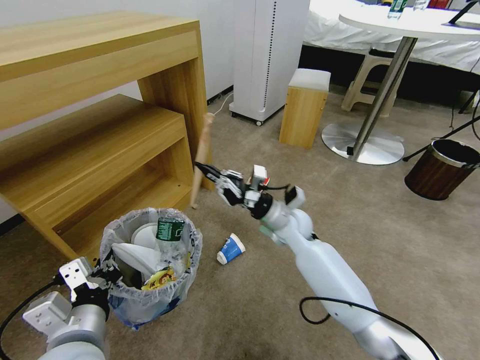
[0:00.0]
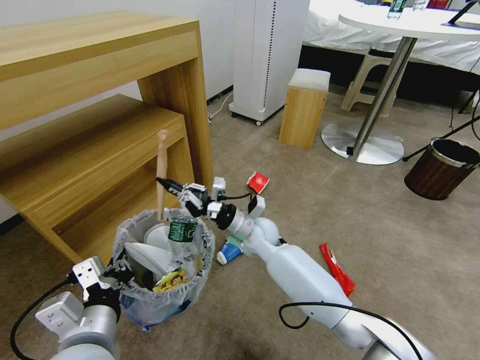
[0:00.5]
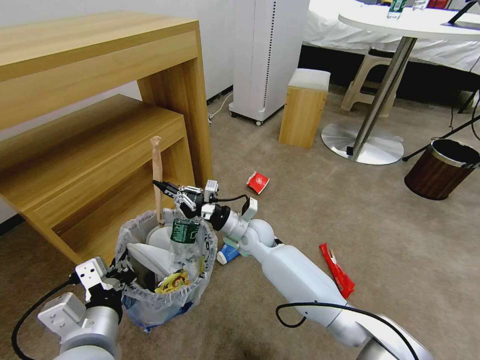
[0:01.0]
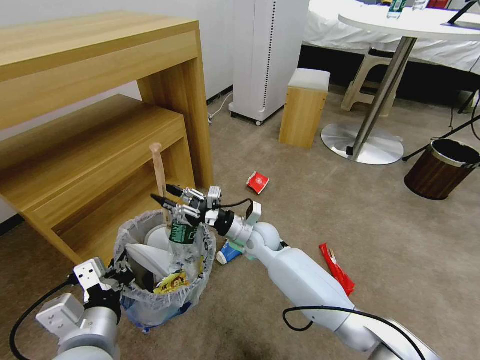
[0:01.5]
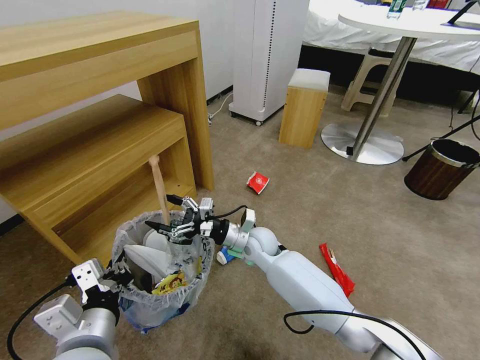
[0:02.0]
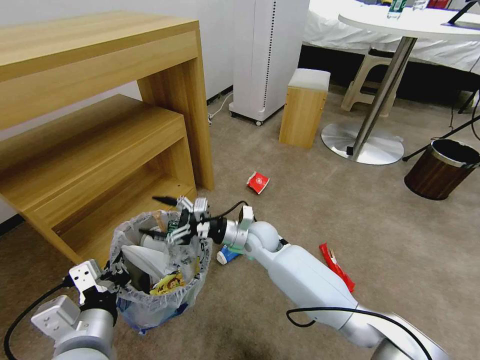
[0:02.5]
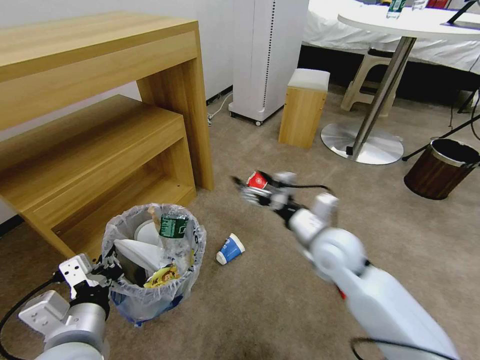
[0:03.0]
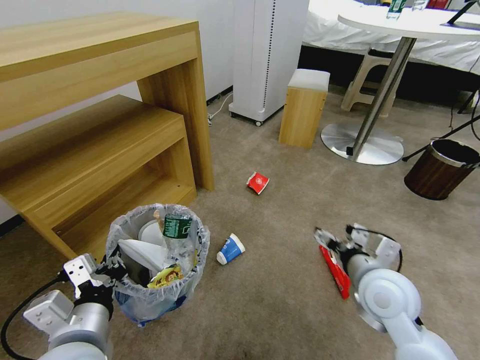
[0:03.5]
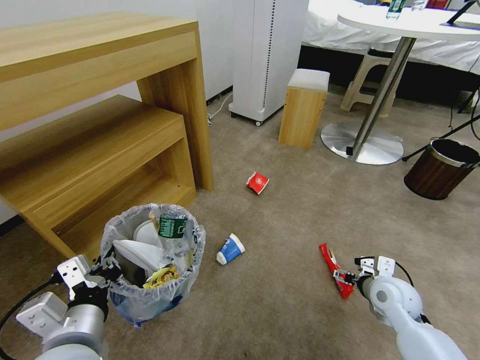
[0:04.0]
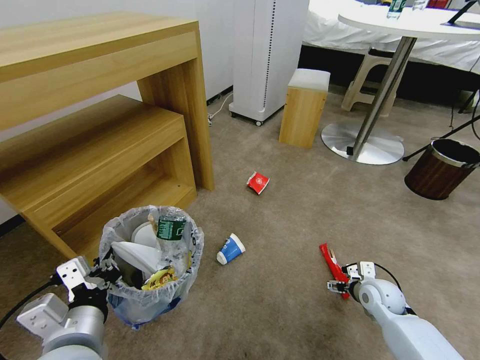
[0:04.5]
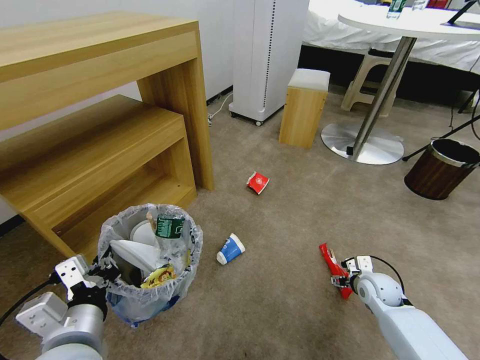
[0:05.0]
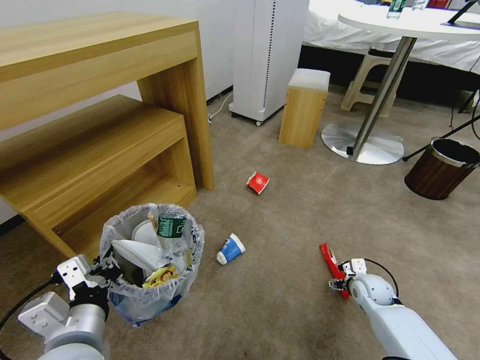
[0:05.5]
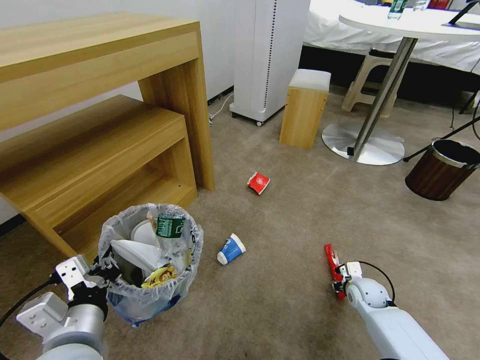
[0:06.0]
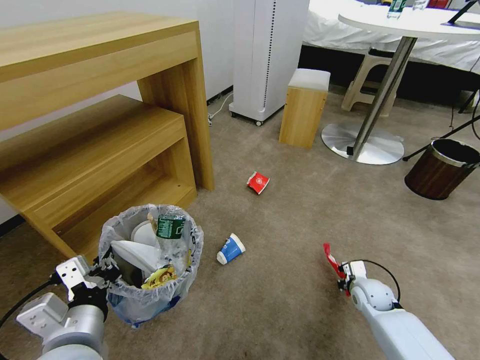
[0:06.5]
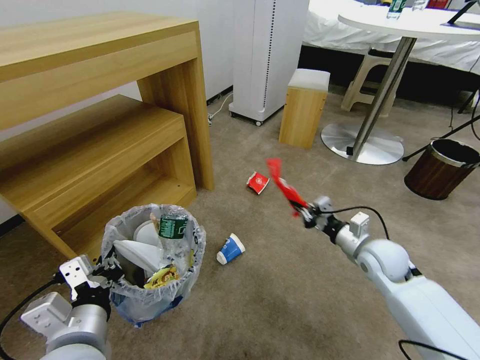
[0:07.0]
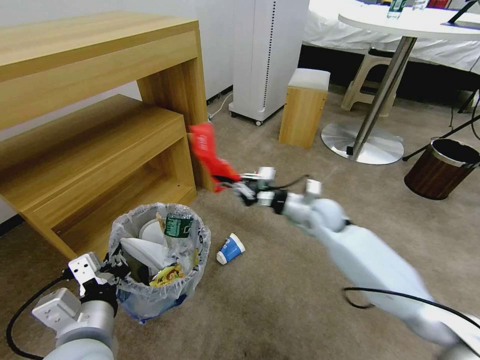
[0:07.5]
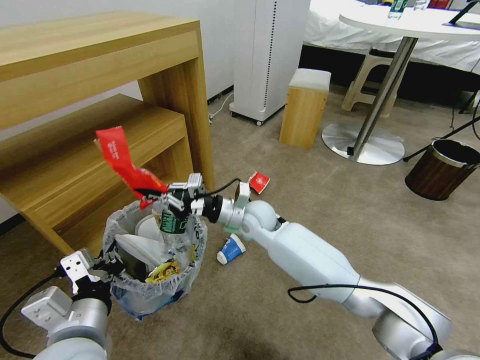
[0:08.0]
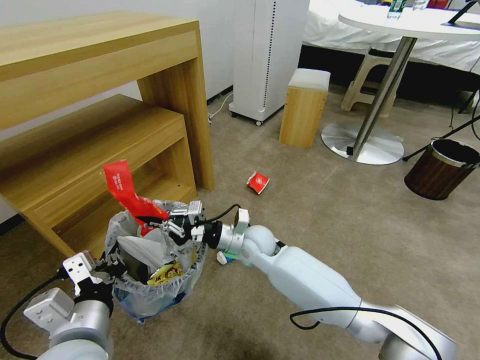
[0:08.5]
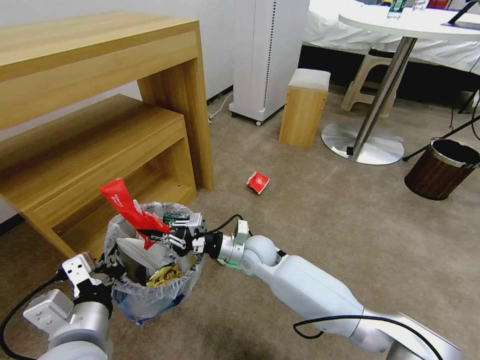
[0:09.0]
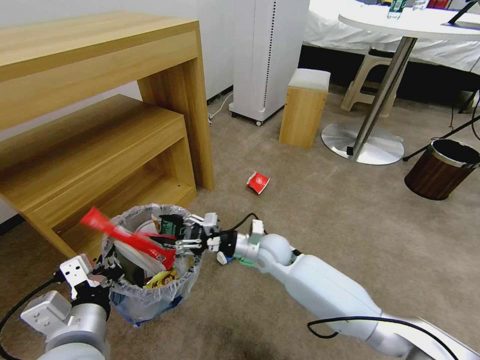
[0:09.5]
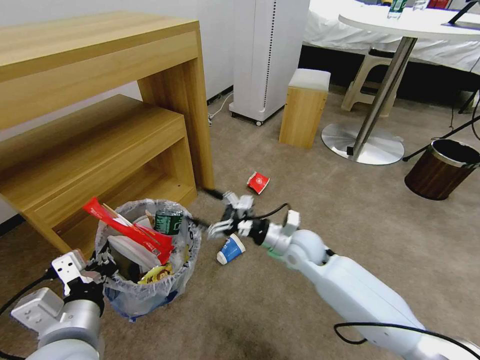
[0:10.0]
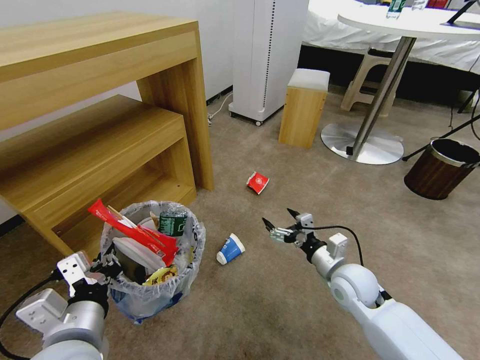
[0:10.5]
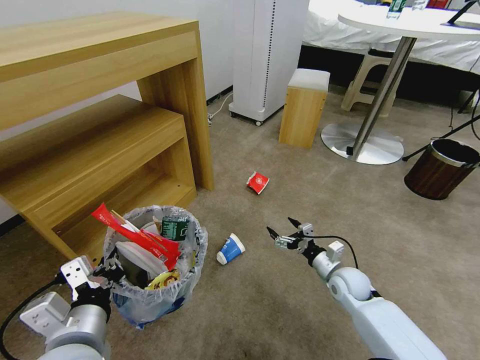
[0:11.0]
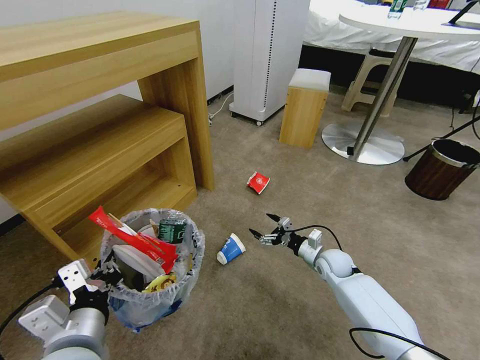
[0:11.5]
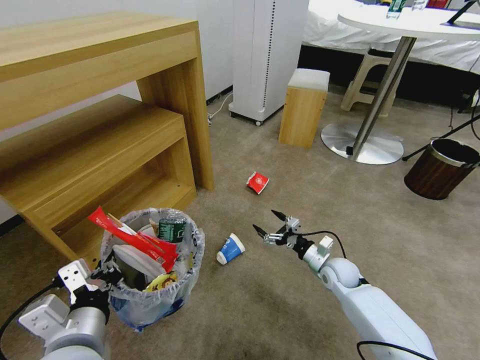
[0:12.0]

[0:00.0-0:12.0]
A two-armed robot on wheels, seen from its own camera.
Task of the whole recording: Pick up the trash bin and place the garbage on the floor into it.
0:00.0 to 0:02.0: The right gripper is displaced to the left and downward by about 10 cm, and opens up.
0:02.0 to 0:04.0: The right gripper goes about 35 cm to the right and backward.
0:04.0 to 0:06.0: The right gripper travels downward and forward by roughly 15 cm, and closes its fingers.
0:06.0 to 0:08.0: The right gripper moves to the left and upward, about 40 cm, and closes up.
0:08.0 to 0:10.0: The right gripper shifts roughly 10 cm to the right and backward, and opens up.
0:10.0 to 0:12.0: The right gripper is displaced to the right and downward by some 20 cm.

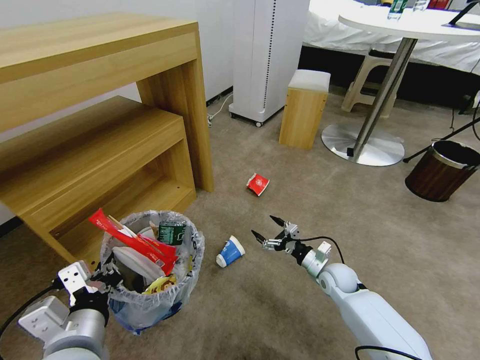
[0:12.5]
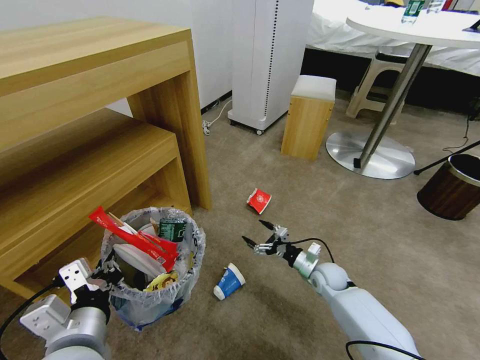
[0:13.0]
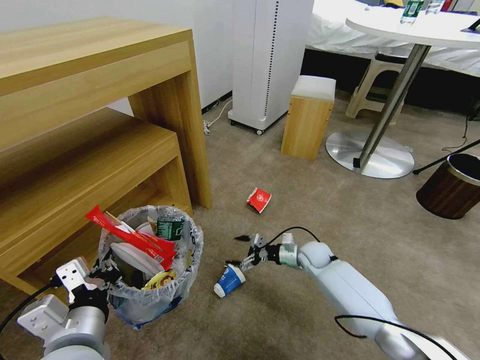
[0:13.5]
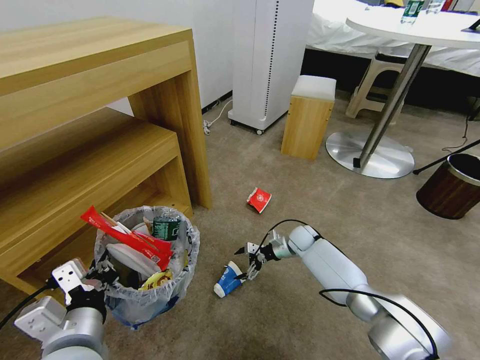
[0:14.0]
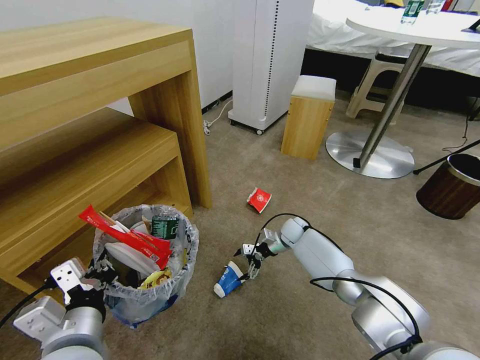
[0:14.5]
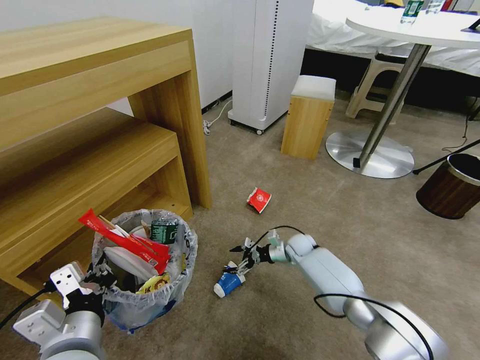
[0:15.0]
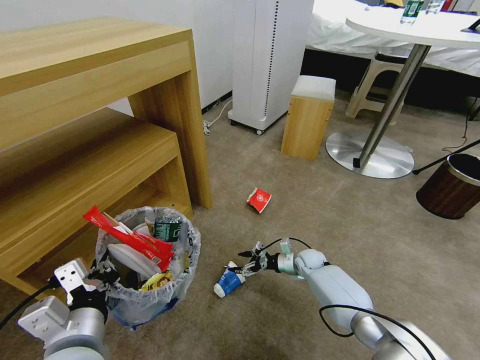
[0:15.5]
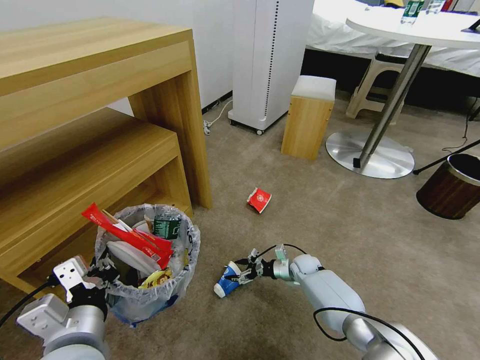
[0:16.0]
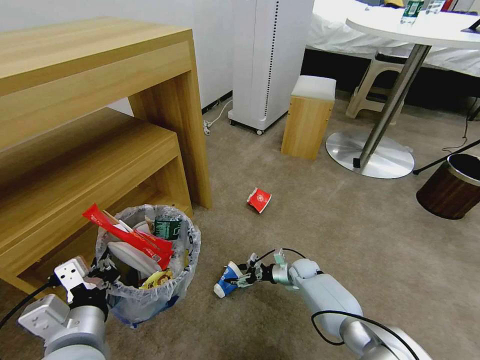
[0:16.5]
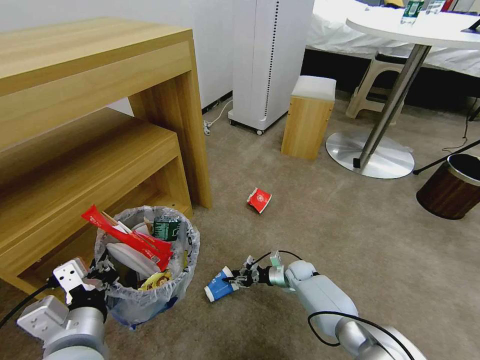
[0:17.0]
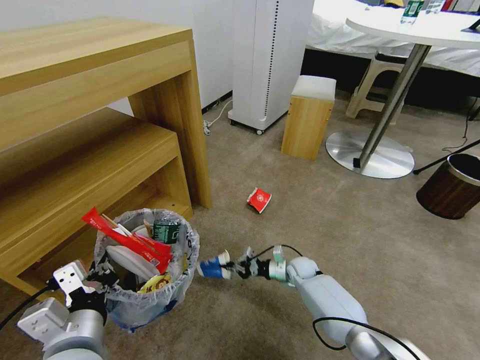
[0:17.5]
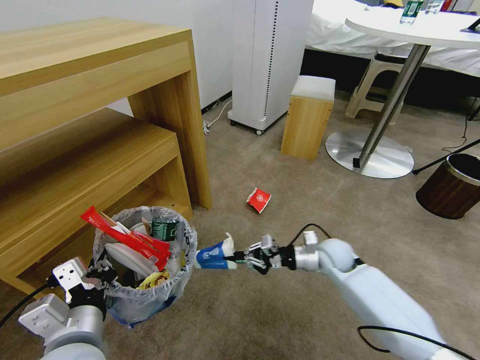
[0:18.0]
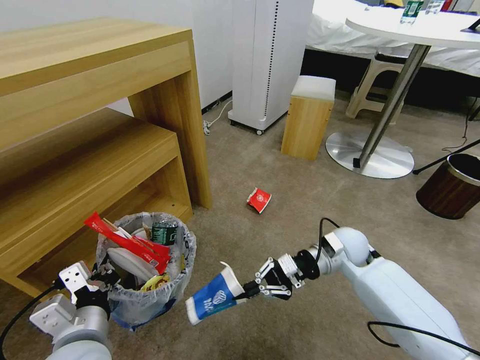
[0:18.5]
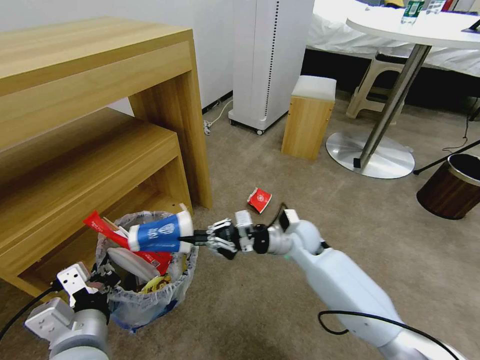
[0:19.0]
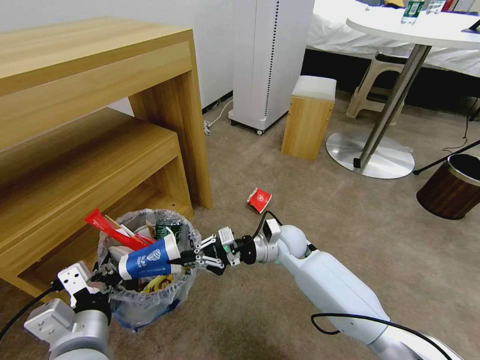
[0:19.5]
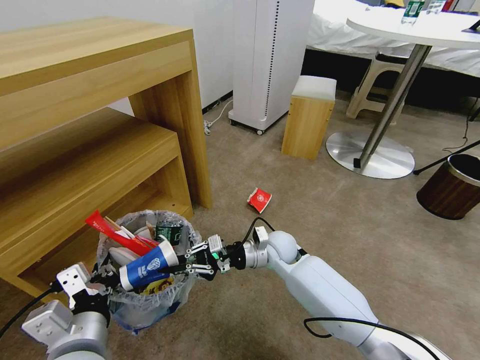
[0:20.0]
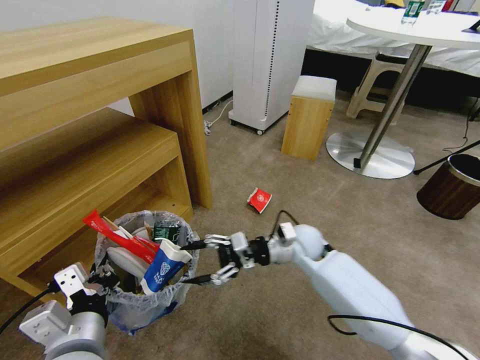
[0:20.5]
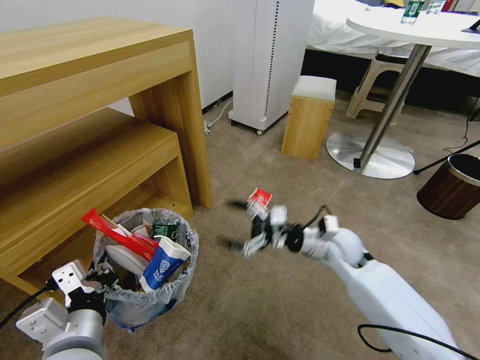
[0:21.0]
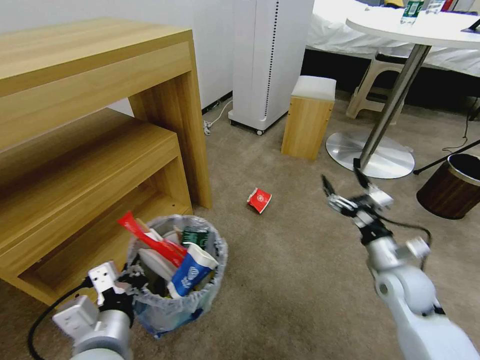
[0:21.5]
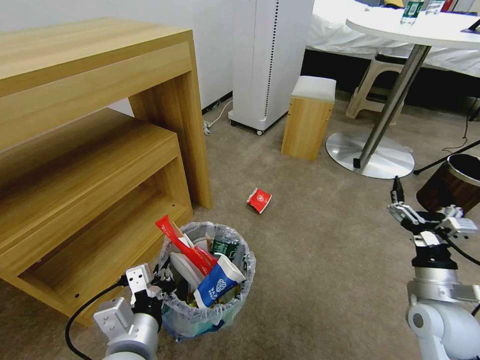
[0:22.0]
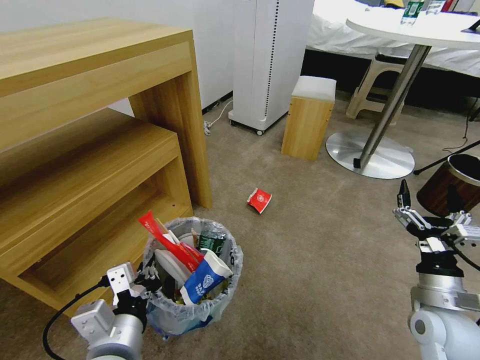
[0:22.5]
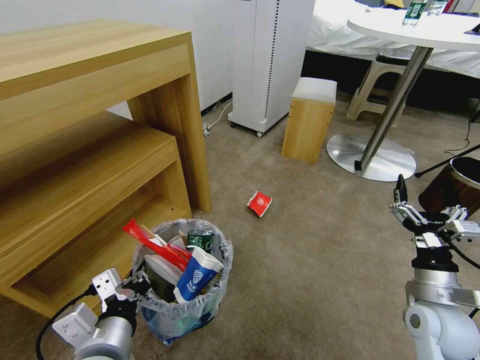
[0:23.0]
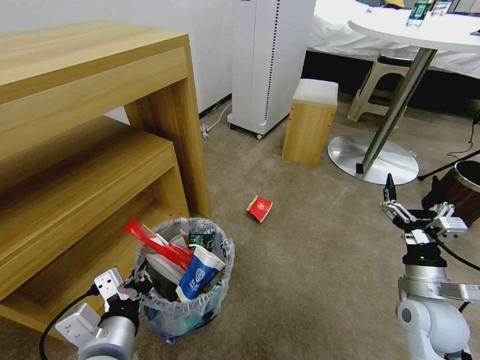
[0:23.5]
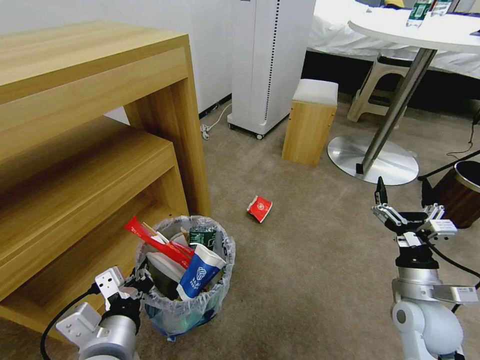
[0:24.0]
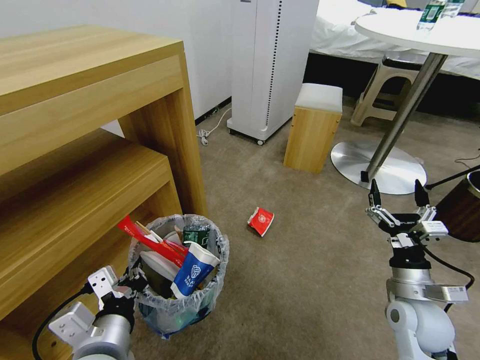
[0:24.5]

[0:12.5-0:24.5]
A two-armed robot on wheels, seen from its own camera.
Task of the whole recording: Pick up the trash bin and place the garbage on the floor into it.
0:12.5 to 0:14.5: The right gripper travels forward and to the left by about 20 cm.
0:14.5 to 0:16.5: The right gripper goes some 15 cm backward and downward.
0:16.5 to 0:18.5: The right gripper moves upward, some 25 cm, and closes its fingers.
0:18.5 to 0:20.5: The right gripper heads to the left, covering approximately 10 cm, and opens.
0:20.5 to 0:22.5: The right gripper is displaced to the right and backward by approximately 30 cm.

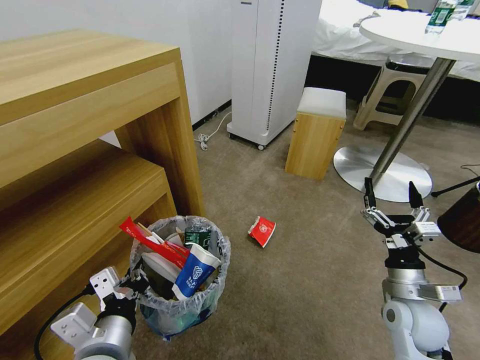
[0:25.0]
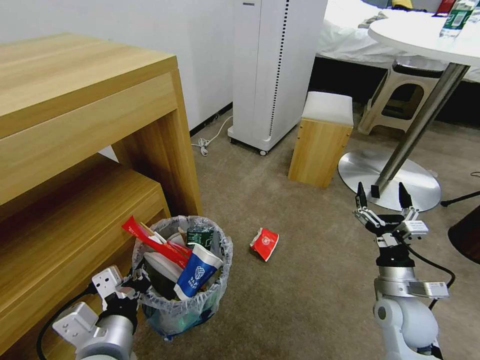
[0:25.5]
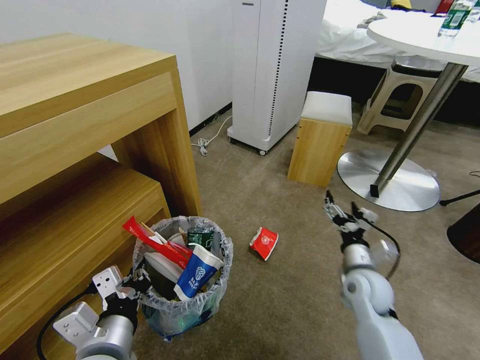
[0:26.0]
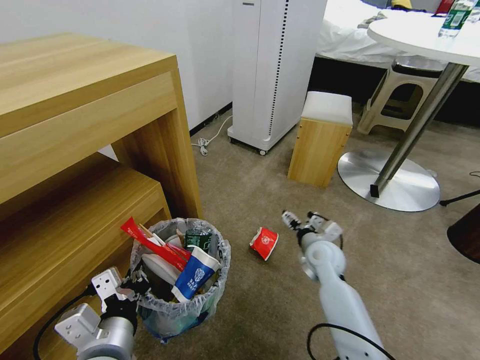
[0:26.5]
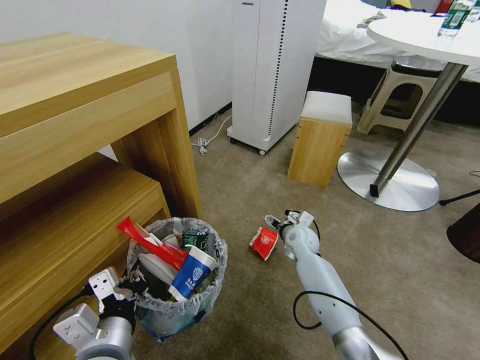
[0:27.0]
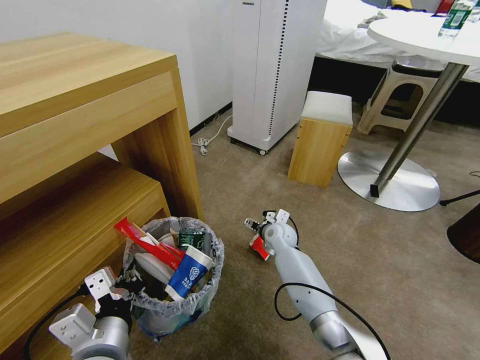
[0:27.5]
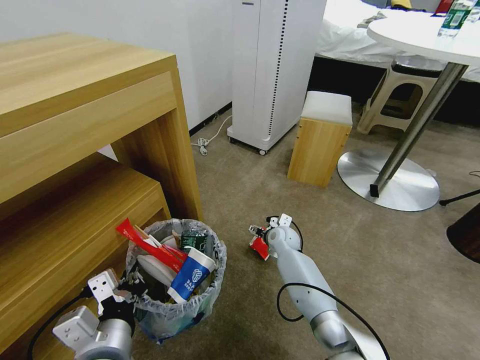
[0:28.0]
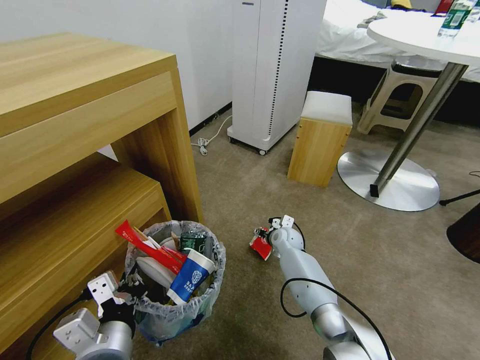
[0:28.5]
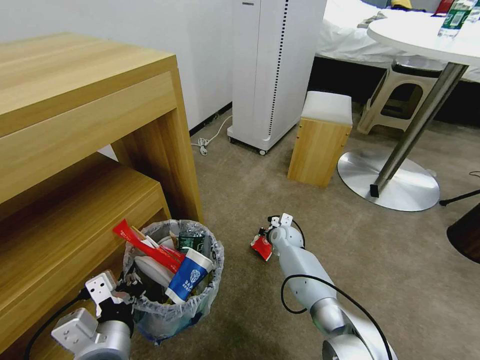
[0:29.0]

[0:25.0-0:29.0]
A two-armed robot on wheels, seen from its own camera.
Task of the whole recording: Pick up the trash bin and place the garbage on the floor into it.
0:25.0 to 0:27.0: The right gripper heads forward and to the left, covering about 25 cm.
0:27.0 to 0:29.0: The right gripper goes approximately 5 cm downward, and closes.
